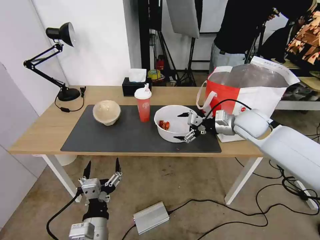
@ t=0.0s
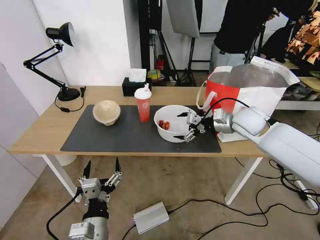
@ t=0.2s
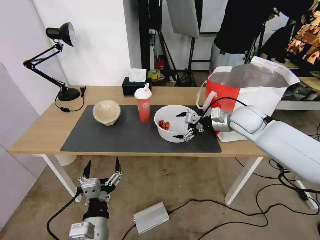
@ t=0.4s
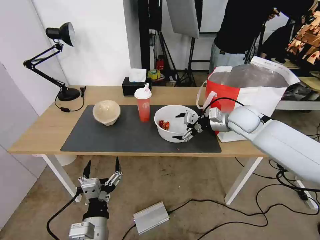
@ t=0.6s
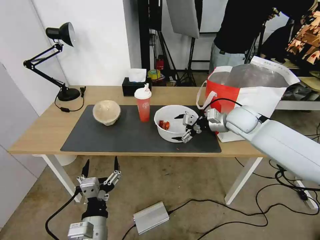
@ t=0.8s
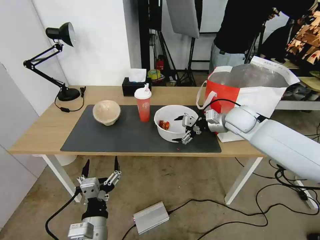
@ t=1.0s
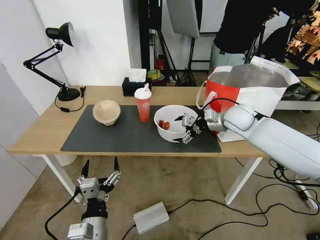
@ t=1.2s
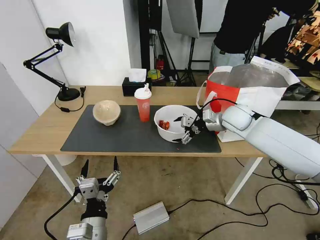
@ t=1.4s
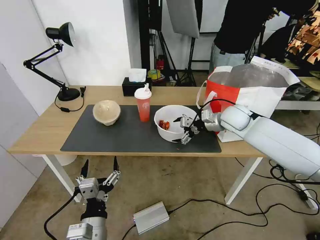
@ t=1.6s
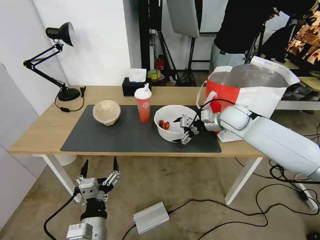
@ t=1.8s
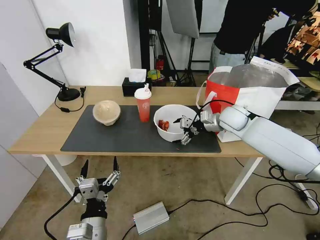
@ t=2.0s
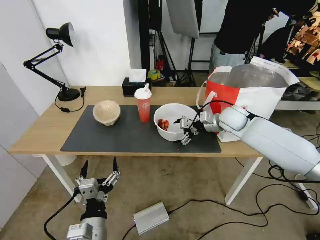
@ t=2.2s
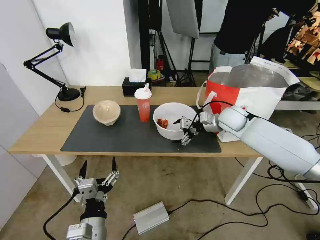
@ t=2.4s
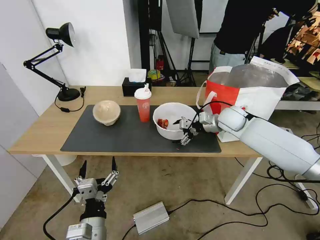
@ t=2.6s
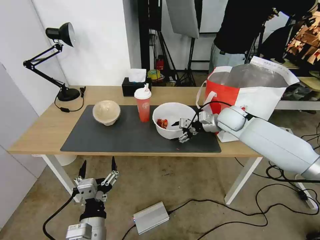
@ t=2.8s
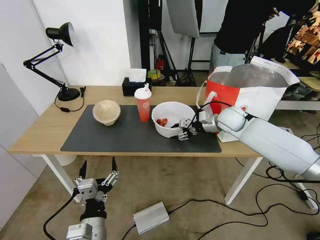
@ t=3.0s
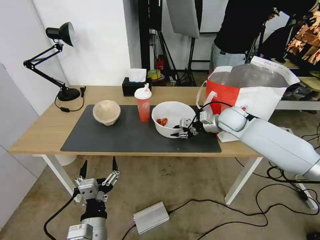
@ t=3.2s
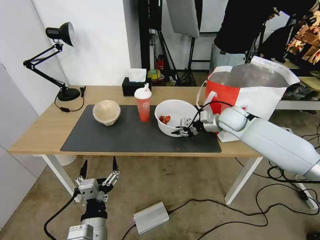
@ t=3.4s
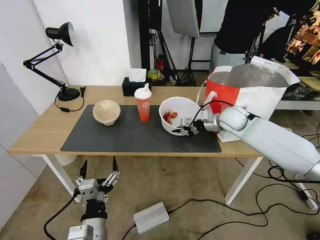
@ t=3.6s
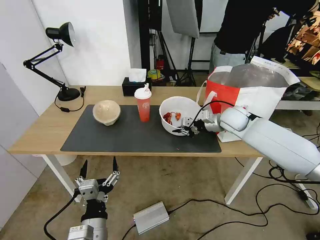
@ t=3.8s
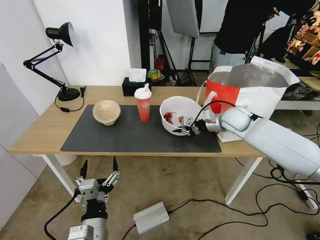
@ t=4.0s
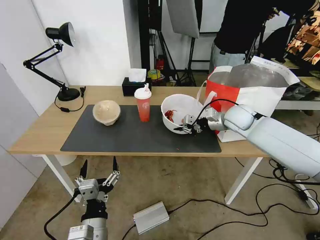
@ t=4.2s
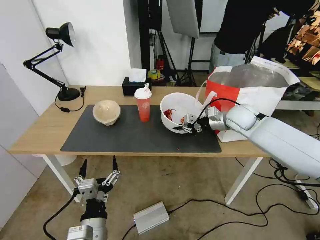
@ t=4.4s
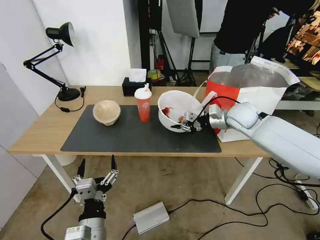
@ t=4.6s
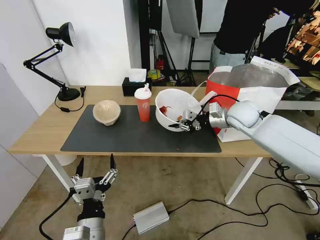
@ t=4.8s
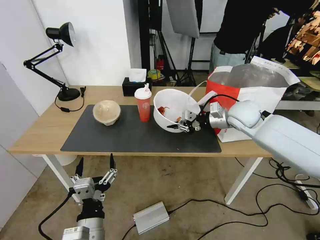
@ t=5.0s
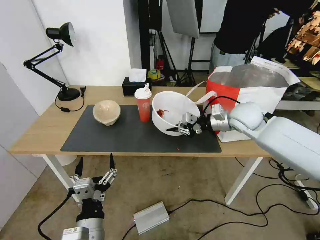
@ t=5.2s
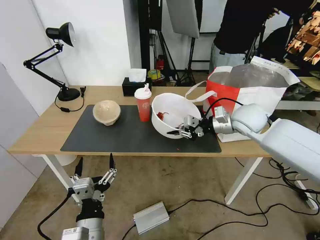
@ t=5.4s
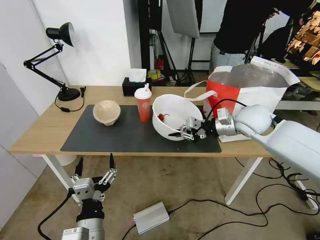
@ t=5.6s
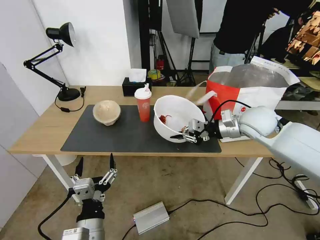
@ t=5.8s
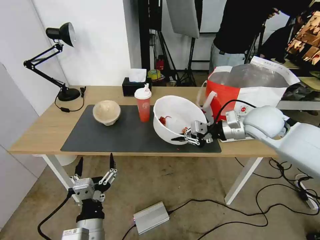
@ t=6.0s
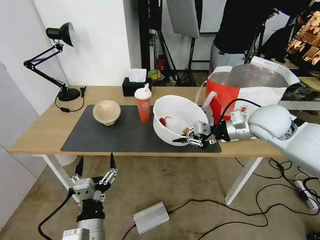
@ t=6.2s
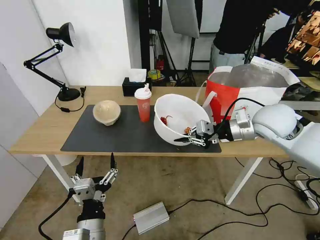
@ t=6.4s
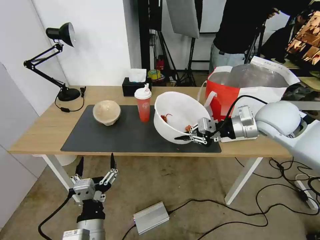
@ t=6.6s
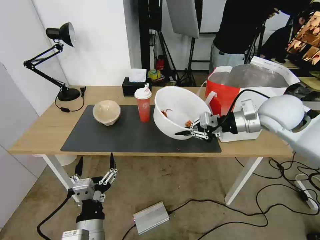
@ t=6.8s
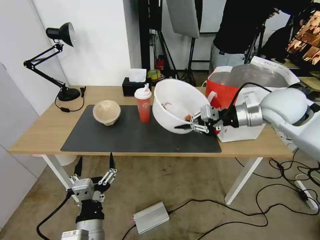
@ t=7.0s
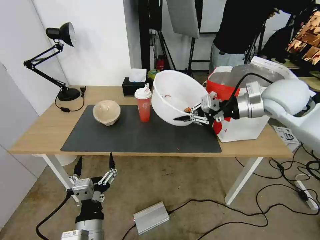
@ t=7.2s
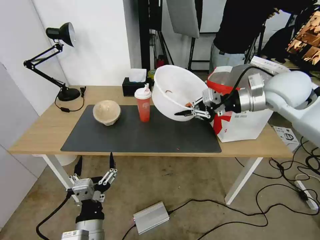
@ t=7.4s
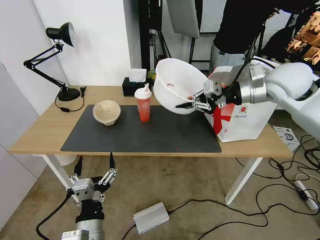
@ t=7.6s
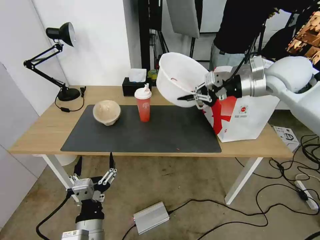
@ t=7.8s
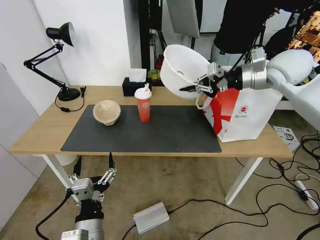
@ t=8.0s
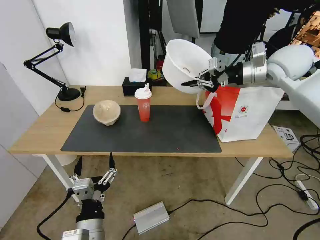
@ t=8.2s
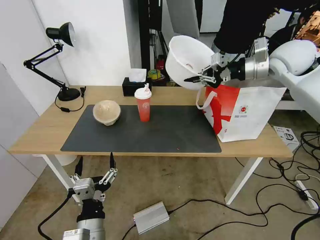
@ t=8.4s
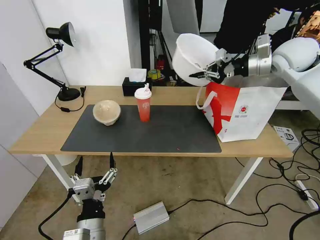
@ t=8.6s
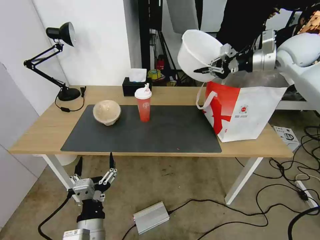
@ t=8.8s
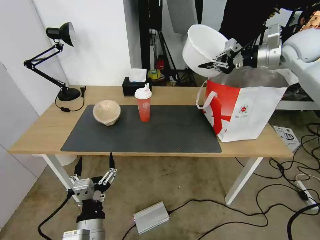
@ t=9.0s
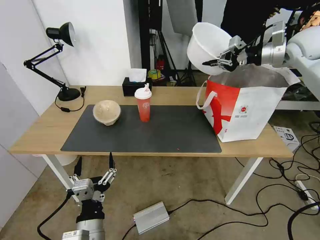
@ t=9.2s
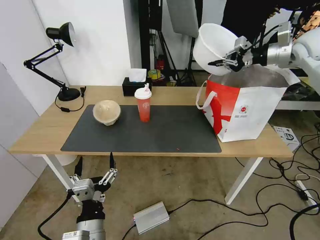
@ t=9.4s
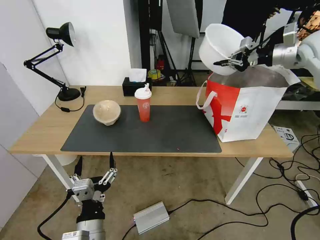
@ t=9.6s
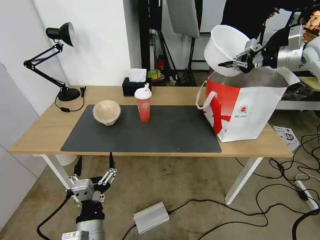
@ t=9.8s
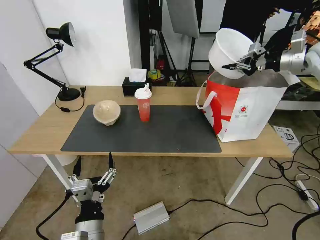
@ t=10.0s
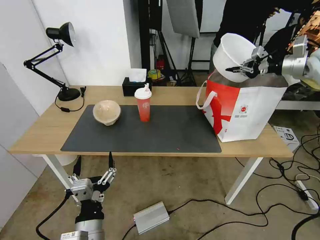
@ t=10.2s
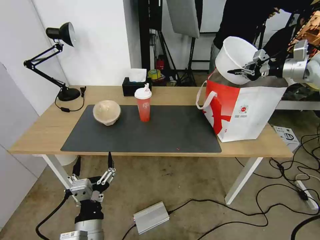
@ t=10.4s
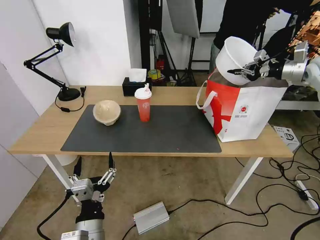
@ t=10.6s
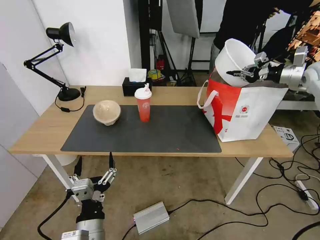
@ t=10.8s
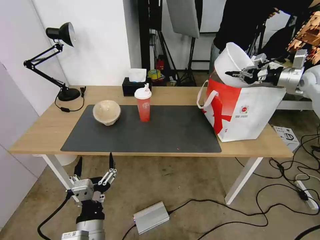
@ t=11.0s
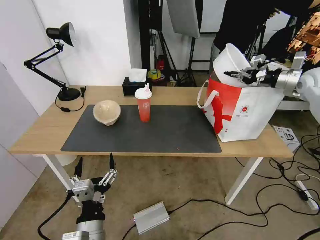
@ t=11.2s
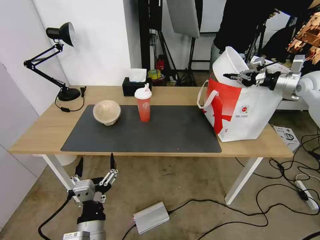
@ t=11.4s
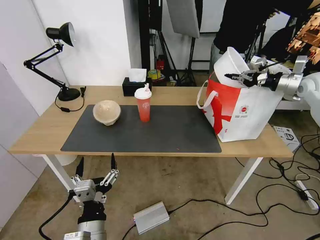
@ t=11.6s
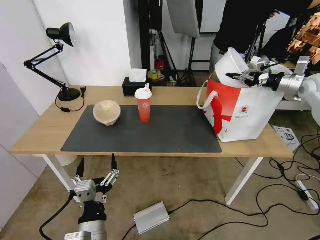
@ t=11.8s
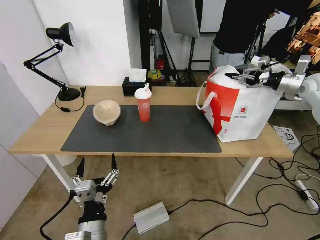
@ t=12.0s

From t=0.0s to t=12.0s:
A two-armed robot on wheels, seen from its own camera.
Task of the whole recording: Pick up the trash from the table and place it into the takeout bag.
From t=0.0s to t=1.6s: The right gripper is displaced forward by some 5 cm.
From t=1.6s to t=3.0s: The right gripper closes up.
From t=3.0s to t=4.4s: The right gripper closes.
From t=4.4s to t=6.0s: The right gripper goes about 10 cm backward and upward.
From t=6.0s to t=7.6s: The right gripper heads upward, covering some 10 cm.
From t=7.6s to t=9.0s: The right gripper moves forward, to the right and upward, some 15 cm.
From t=9.0s to t=10.4s: The right gripper moves to the right, some 10 cm.
From t=10.4s to t=12.0s: The right gripper travels downward by some 5 cm.

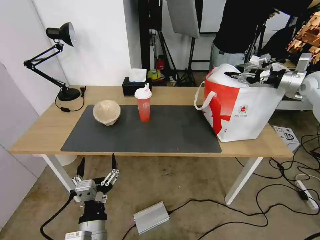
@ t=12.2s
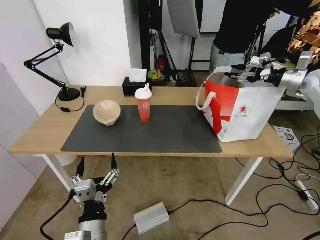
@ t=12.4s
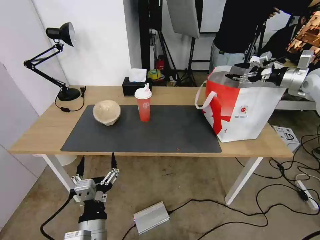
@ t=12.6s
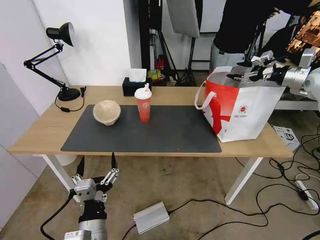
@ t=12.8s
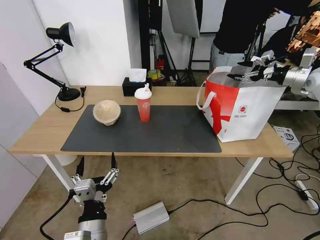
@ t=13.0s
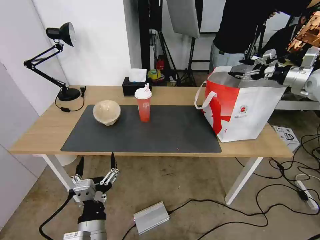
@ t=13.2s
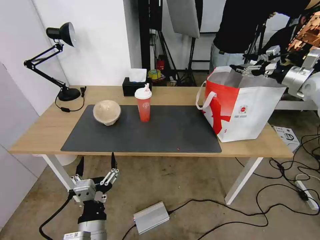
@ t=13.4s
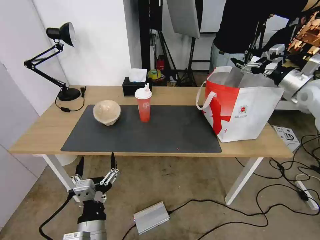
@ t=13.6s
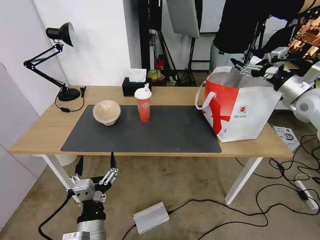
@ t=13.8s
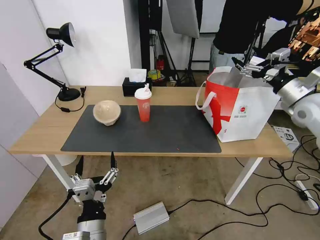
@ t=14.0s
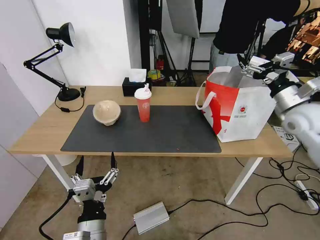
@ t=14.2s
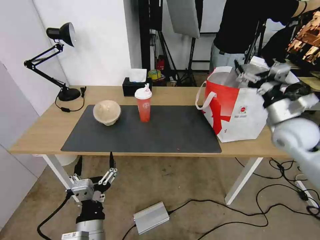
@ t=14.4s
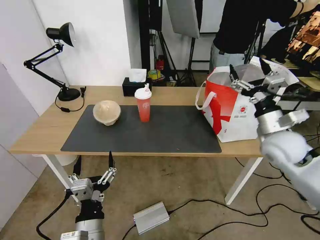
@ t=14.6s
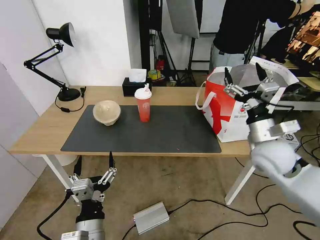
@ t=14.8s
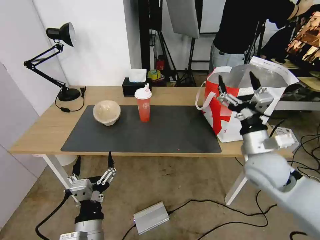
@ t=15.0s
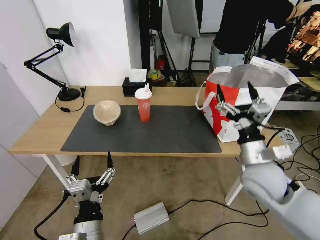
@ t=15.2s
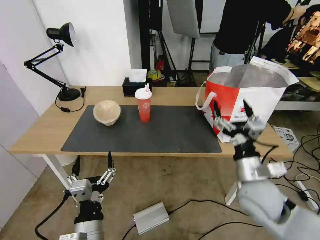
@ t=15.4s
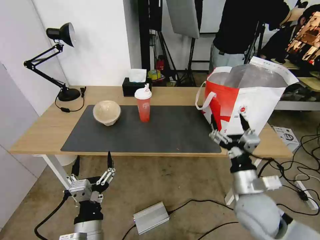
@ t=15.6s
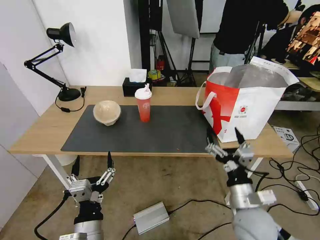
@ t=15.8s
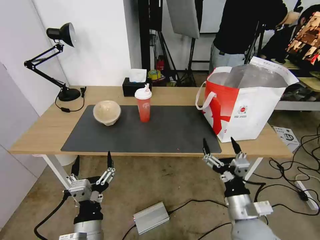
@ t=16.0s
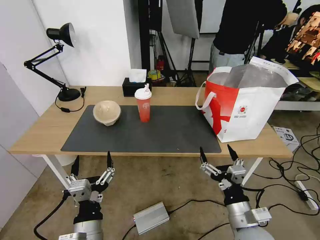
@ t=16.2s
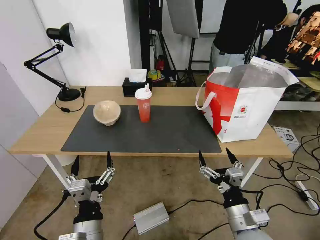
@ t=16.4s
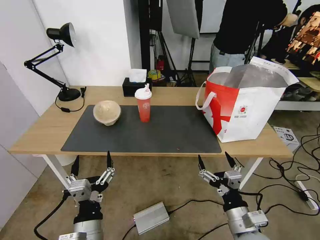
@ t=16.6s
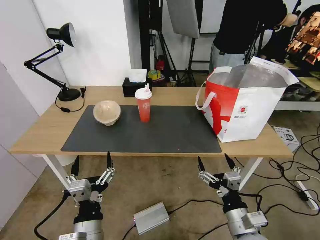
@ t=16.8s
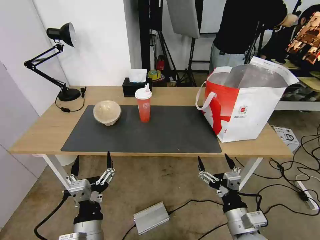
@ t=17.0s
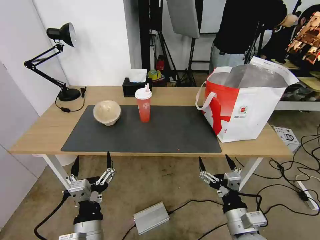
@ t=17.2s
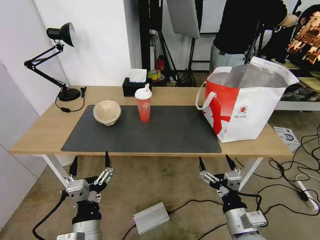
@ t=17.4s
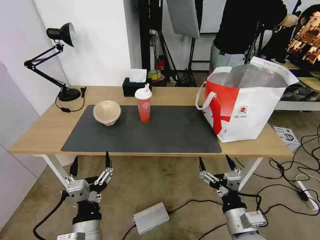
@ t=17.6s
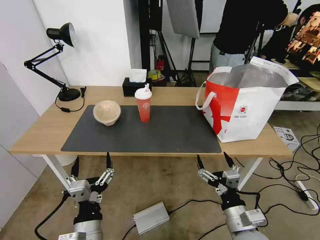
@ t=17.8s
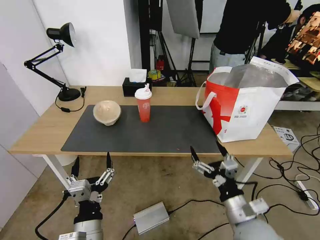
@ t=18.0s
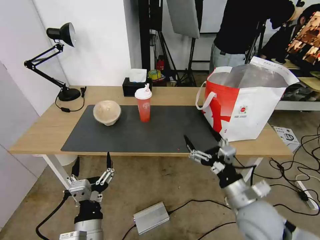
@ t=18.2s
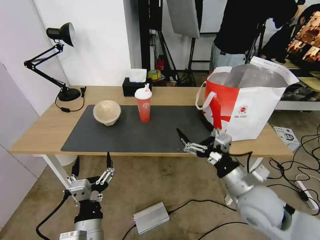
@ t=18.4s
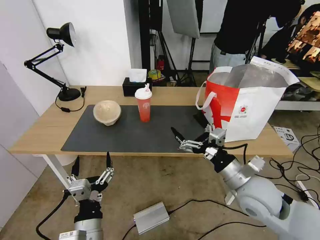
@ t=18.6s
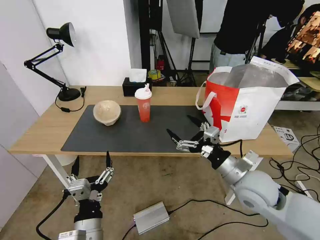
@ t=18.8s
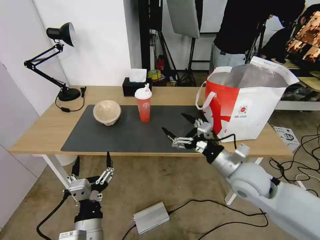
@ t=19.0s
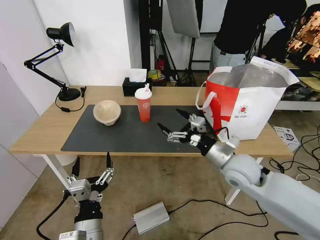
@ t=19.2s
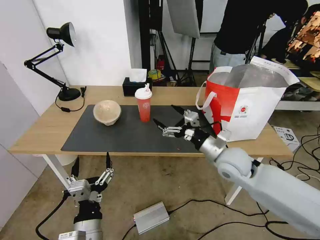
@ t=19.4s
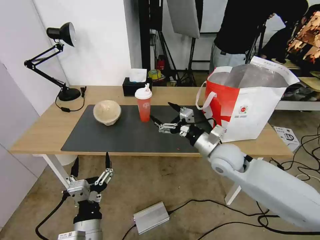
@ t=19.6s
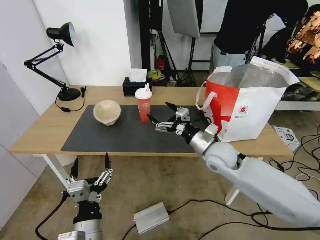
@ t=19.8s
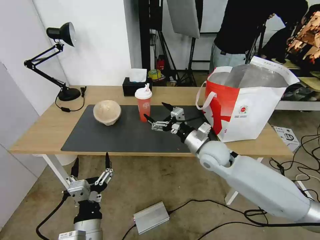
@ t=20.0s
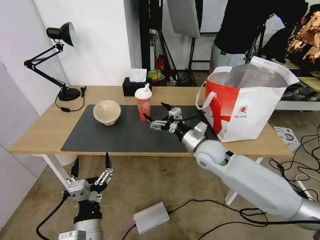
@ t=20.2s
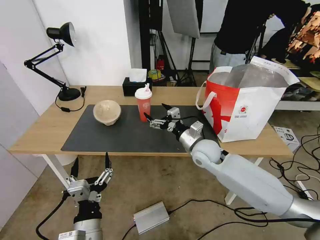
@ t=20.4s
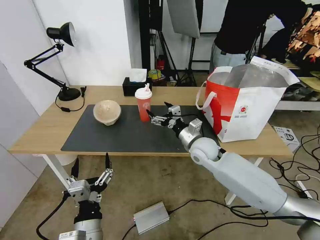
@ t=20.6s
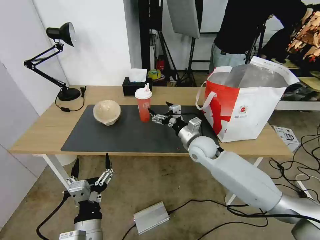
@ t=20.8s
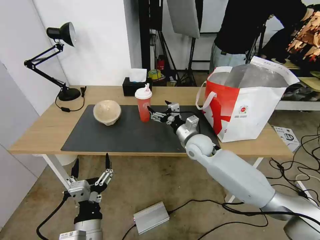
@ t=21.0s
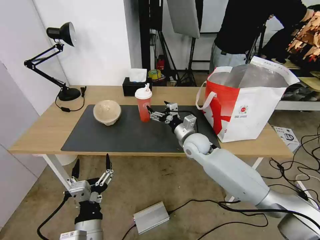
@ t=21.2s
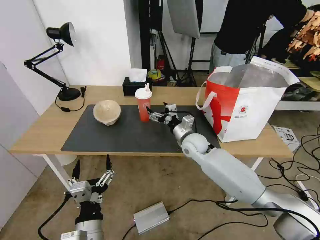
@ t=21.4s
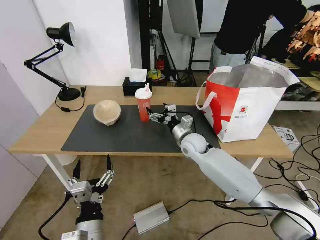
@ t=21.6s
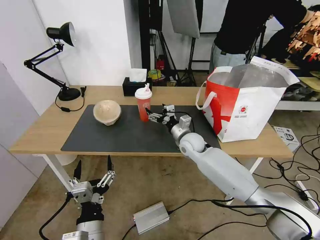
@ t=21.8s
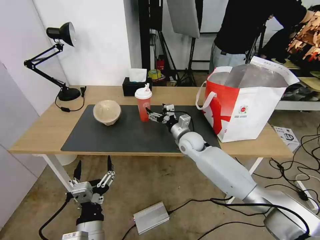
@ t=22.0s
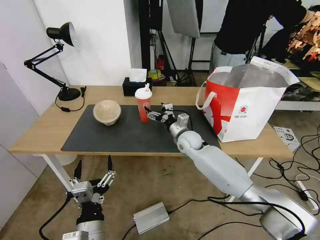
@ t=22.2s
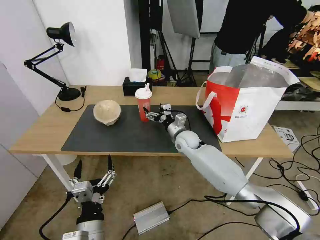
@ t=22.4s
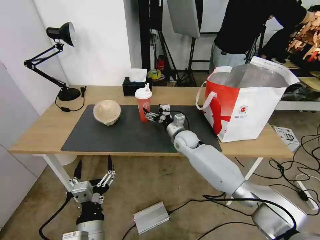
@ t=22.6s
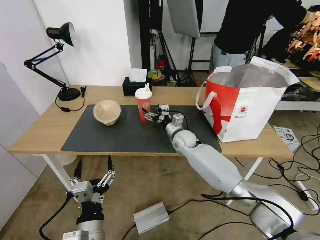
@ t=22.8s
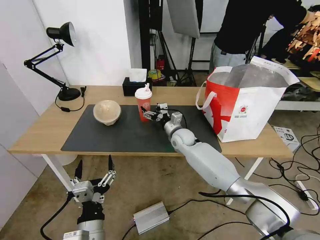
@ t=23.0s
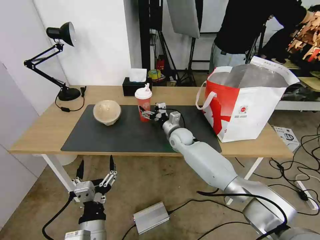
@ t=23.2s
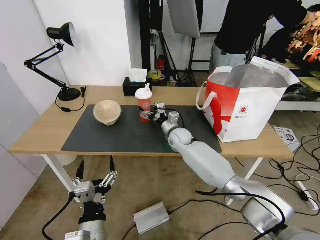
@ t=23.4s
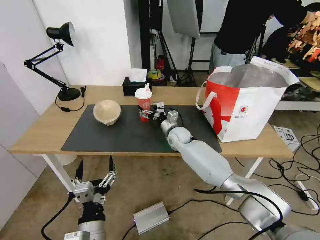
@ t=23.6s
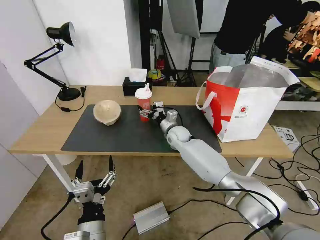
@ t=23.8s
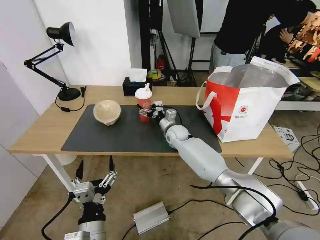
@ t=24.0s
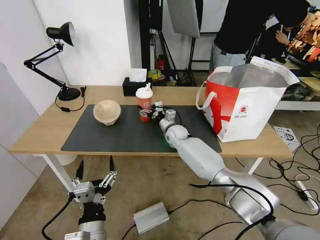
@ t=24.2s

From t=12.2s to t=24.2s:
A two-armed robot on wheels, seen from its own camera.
Task of the whole recording: Pick up the trash from the table and place it into the takeout bag.
From t=12.2s to t=13.8s: The right gripper shifts roughly 10 cm backward and to the left, and opens its fingers.
From t=13.8s to t=15.2s: The right gripper shifts roughly 30 cm to the left, backward and downward.
From t=15.2s to t=16.6s: The right gripper shifts roughly 15 cm backward and downward.
From t=16.6s to t=18.2s: The right gripper goes roughly 10 cm forward and upward.
From t=18.2s to t=19.8s: The right gripper travels forward by roughly 20 cm.
From t=19.8s to t=21.2s: The right gripper heads forward and to the left, covering approximately 10 cm.
From t=21.2s to t=22.6s: The right gripper changes place by about 5 cm.
From t=22.6s to t=24.2s: The right gripper moves forward, approximately 5 cm.
